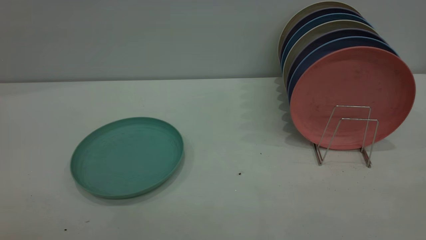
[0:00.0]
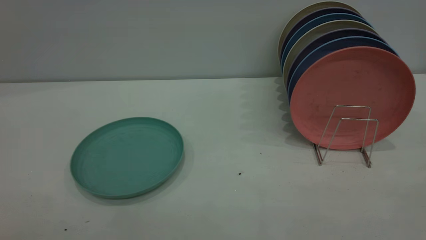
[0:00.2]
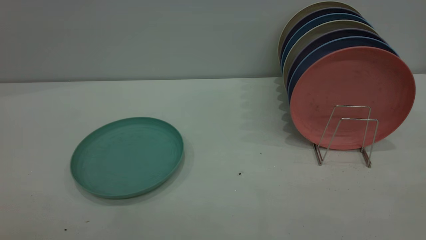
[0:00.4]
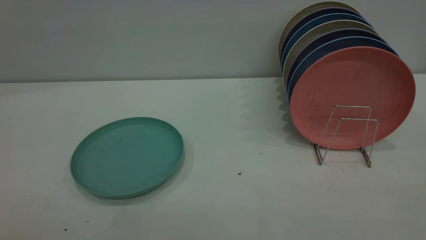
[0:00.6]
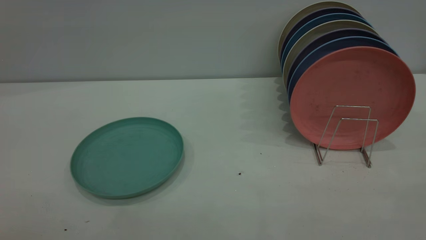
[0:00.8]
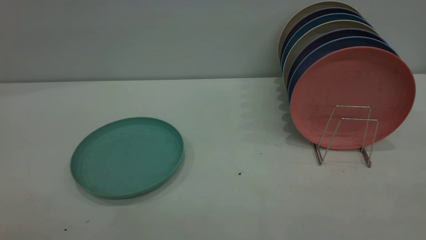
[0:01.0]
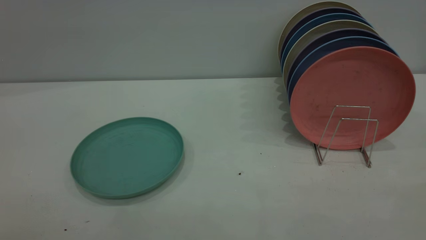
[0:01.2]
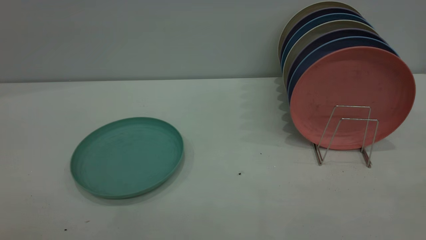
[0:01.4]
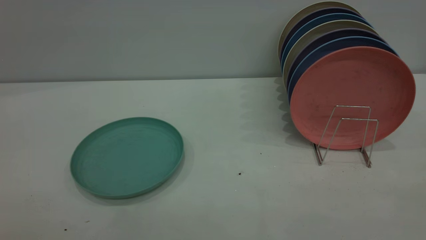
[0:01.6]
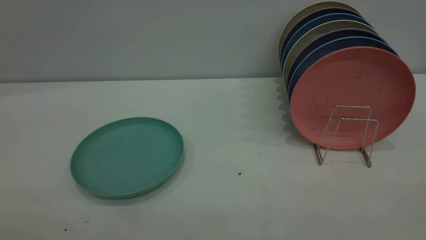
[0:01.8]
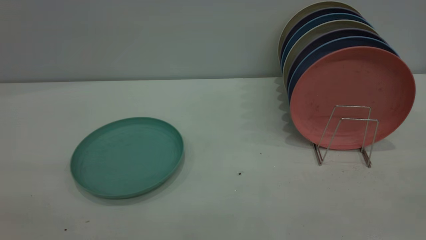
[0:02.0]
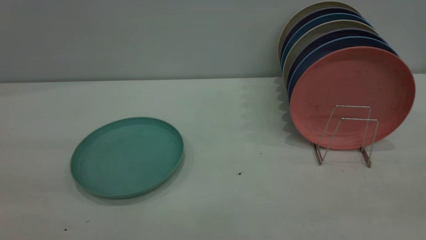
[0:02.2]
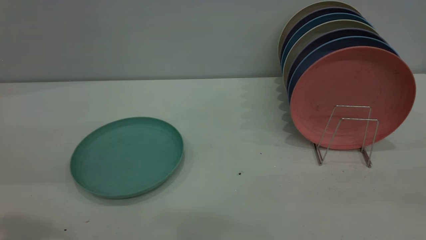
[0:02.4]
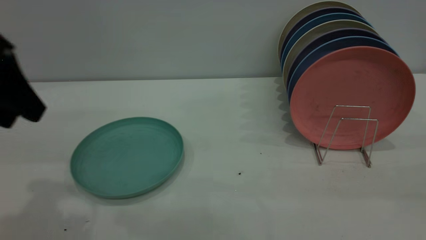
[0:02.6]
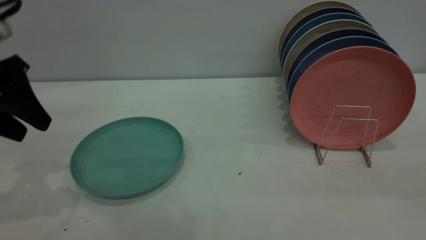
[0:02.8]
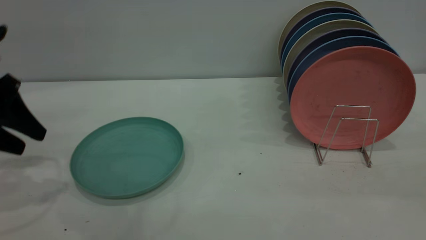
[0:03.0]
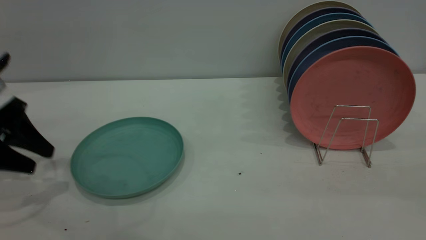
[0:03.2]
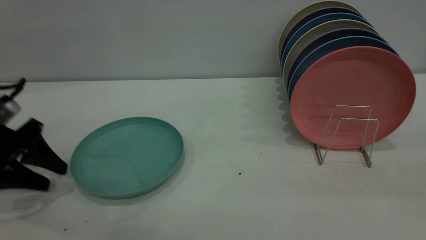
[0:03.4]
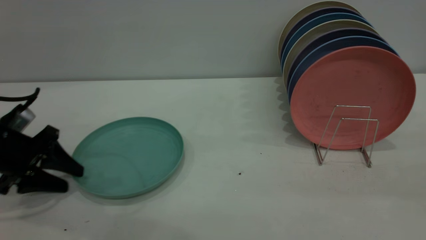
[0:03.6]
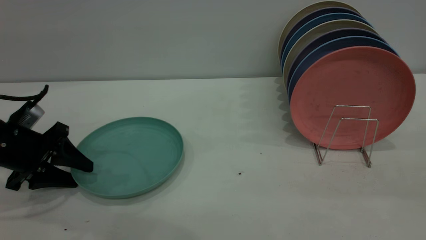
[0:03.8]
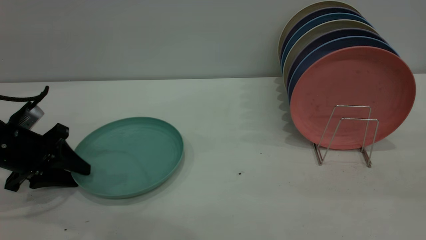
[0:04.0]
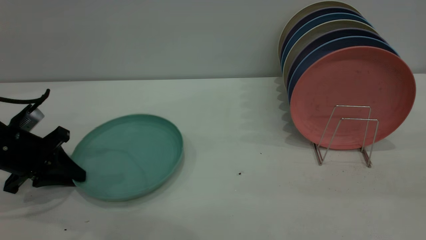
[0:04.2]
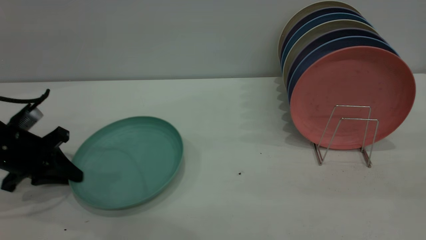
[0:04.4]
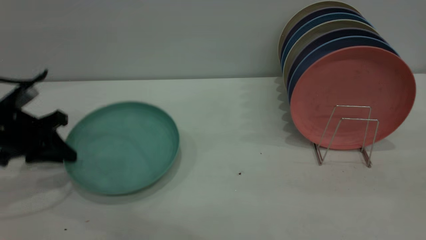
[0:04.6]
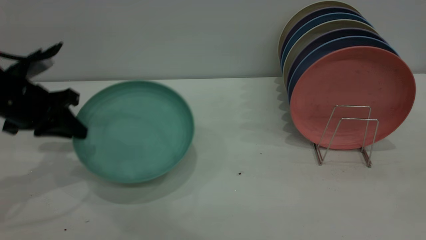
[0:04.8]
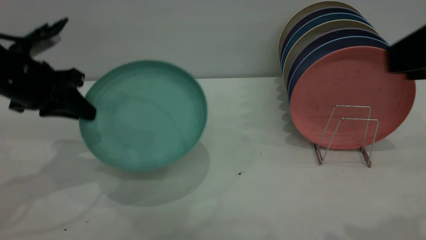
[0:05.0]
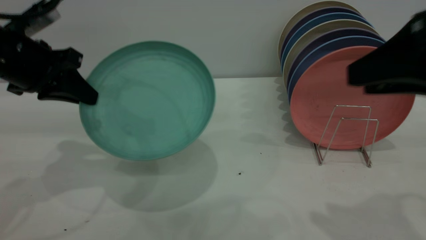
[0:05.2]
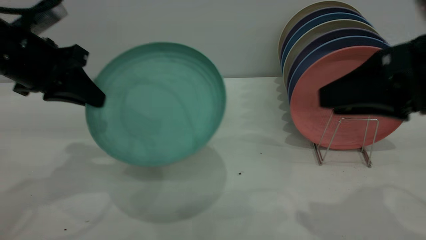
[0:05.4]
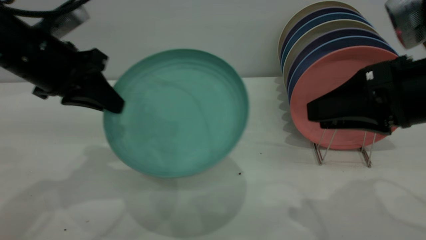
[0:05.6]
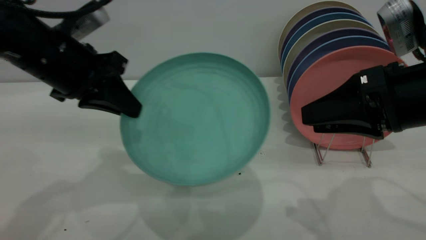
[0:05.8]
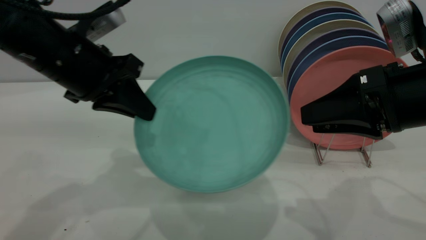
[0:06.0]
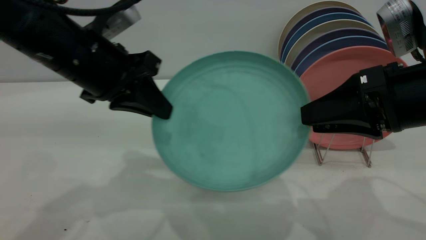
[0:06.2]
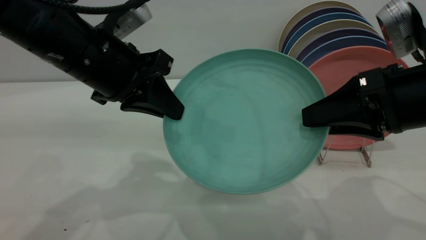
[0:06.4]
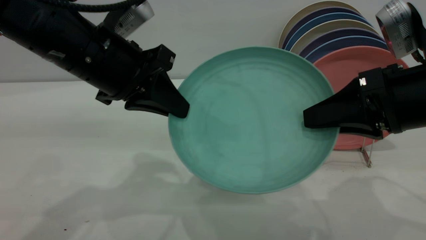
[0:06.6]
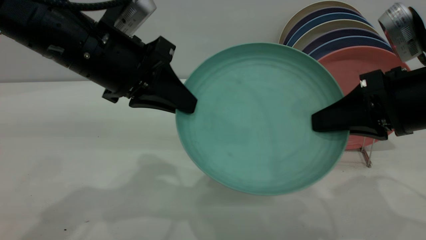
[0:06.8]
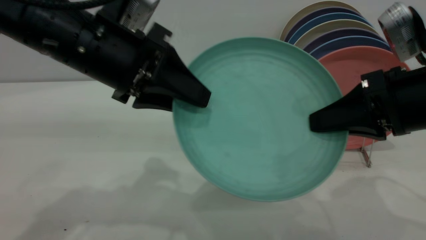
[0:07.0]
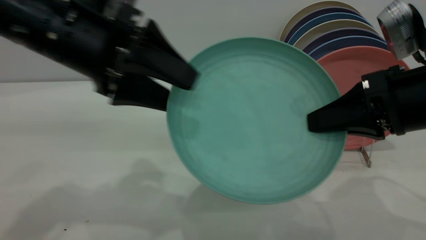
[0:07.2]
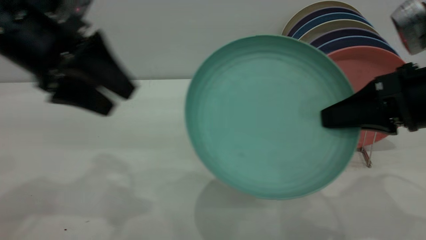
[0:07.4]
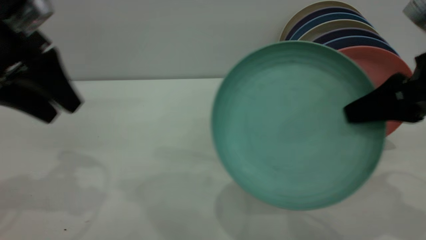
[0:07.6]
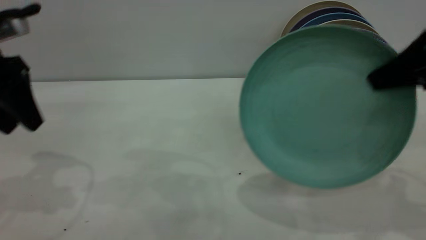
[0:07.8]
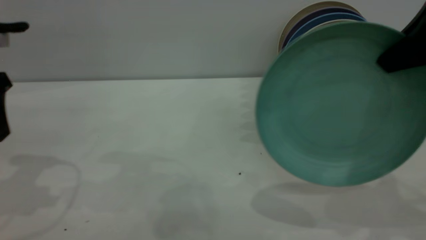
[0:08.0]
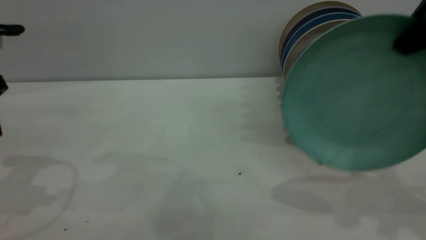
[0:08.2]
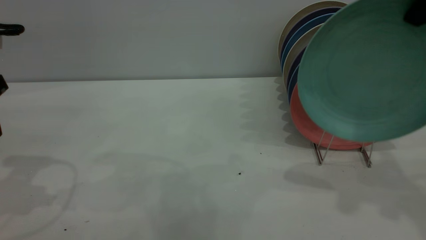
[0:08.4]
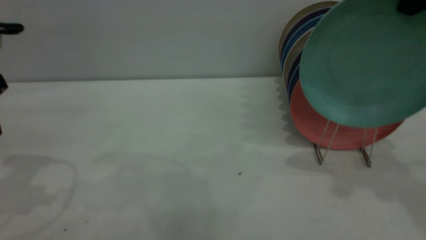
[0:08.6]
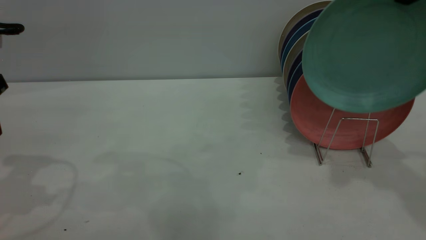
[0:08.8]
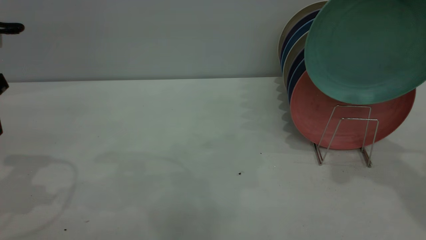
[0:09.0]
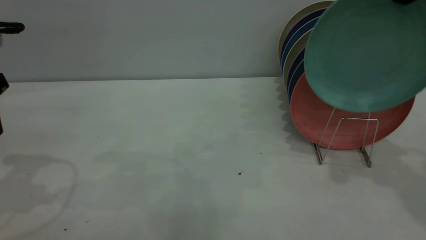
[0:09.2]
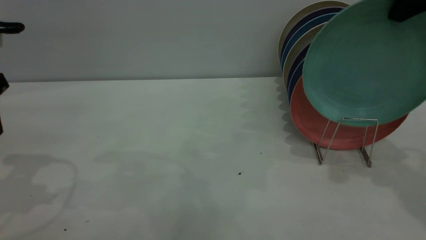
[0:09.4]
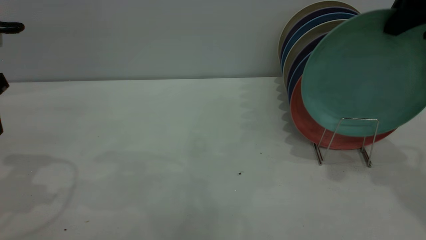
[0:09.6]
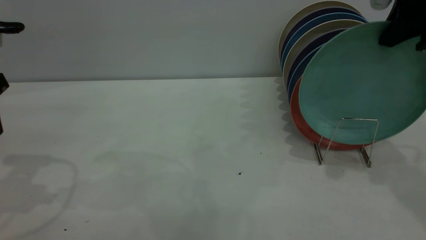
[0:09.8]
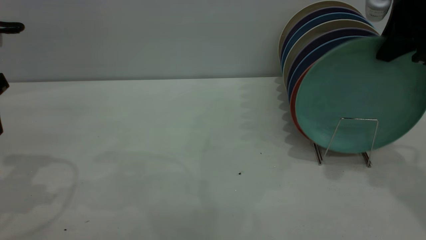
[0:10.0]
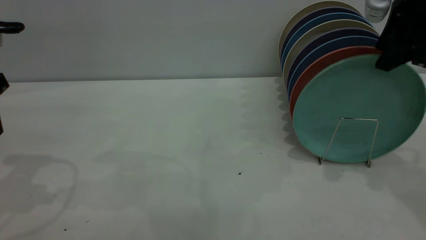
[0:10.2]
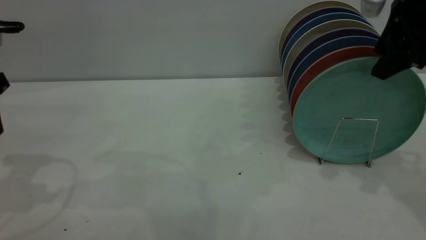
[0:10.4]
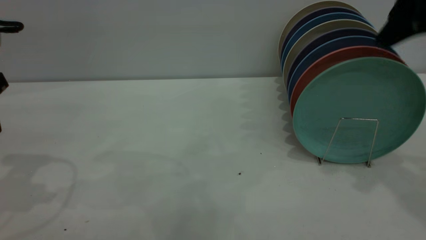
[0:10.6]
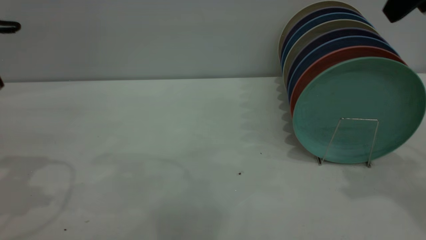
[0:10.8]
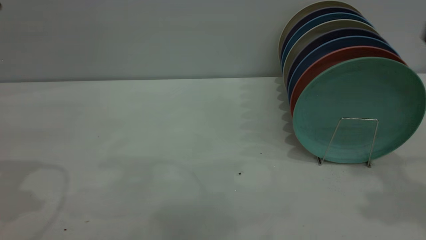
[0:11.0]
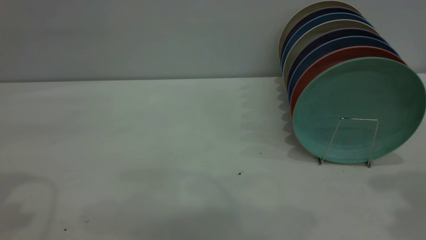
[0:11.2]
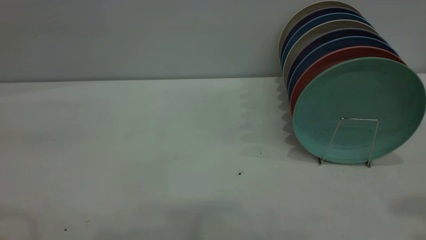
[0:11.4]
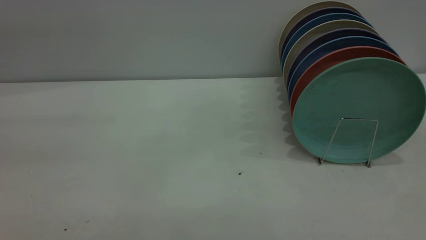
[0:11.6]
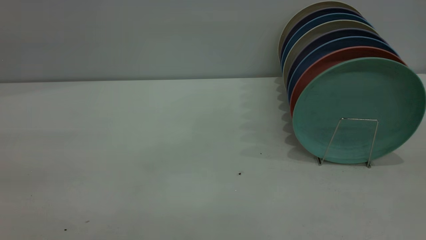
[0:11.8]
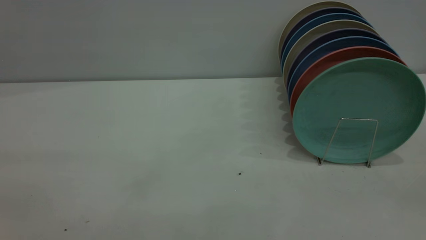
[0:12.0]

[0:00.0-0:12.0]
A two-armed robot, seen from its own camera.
Task of the whole recording: the left gripper grasp the green plate, the left gripper pass the green plate to the right gripper, and the right gripper place the green plate on the plate rack.
Step, 0:00.0 to 0:04.2: Pick up the plate with the left gripper.
Step, 0:04.4 to 0:07.4: Pass the plate from the left gripper to the right gripper.
Step, 0:07.6 to 0:10.6: Place the plate on the shelf.
0:00.0 to 0:01.6: Neither gripper changes place.
0:01.6 to 0:03.0: The left gripper heads forward and downward, covering approximately 35 cm.
0:03.0 to 0:04.4: The left gripper heads downward, covering some 10 cm, and closes.
0:04.4 to 0:06.0: The right gripper travels forward and downward by approximately 25 cm; the left gripper is displaced to the right and upward by roughly 20 cm.
0:06.0 to 0:07.6: The left gripper heads to the left, covering about 10 cm, and opens up; the right gripper closes.
0:07.6 to 0:09.0: The right gripper shifts approximately 15 cm upward and forward.
0:09.0 to 0:10.4: The right gripper moves downward, about 5 cm, and opens its fingers.
0:10.4 to 0:12.0: The right gripper goes about 30 cm backward.
